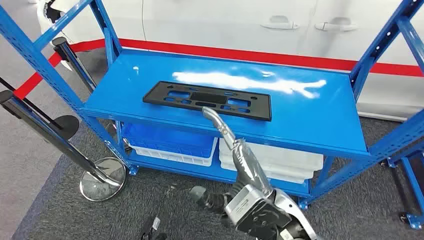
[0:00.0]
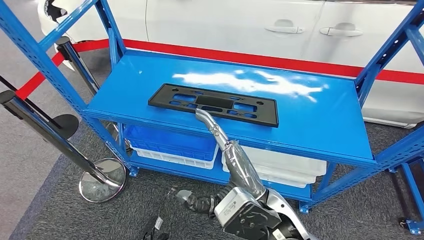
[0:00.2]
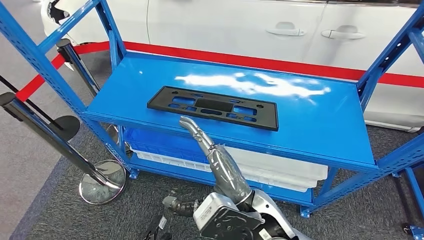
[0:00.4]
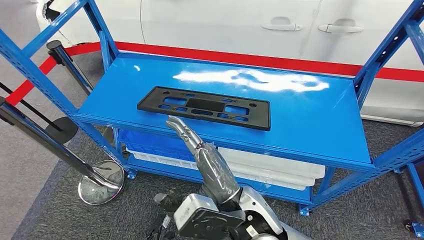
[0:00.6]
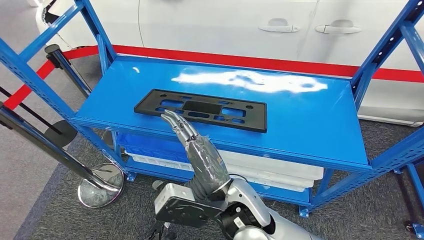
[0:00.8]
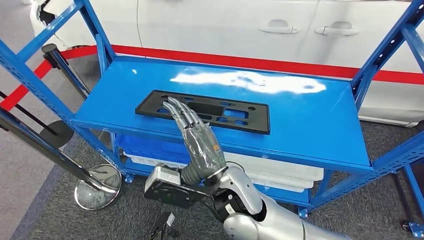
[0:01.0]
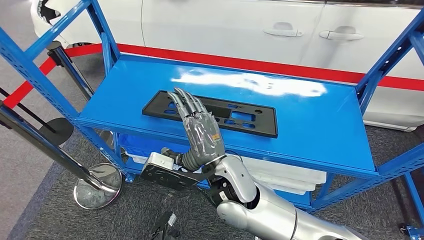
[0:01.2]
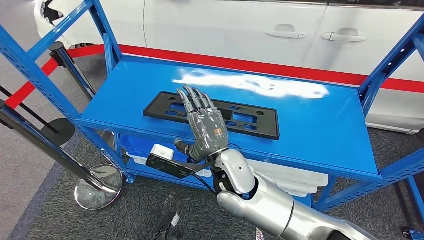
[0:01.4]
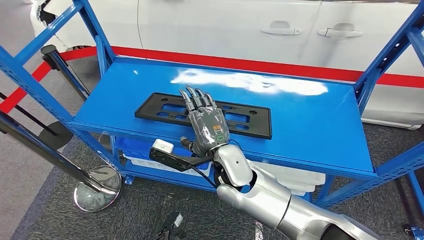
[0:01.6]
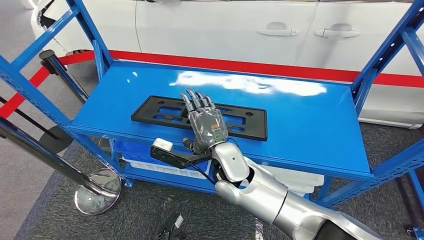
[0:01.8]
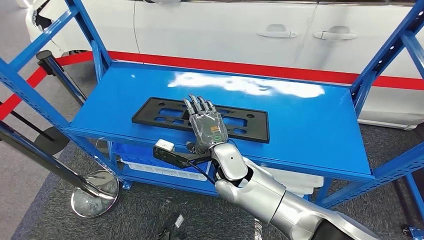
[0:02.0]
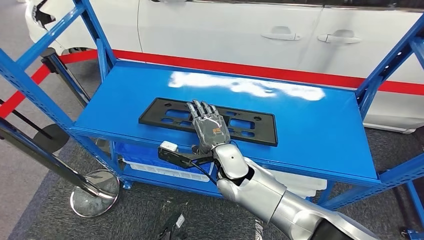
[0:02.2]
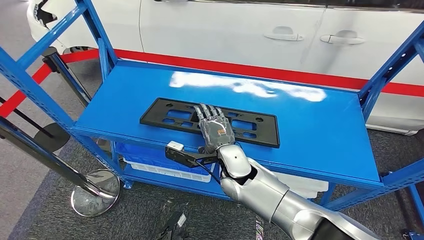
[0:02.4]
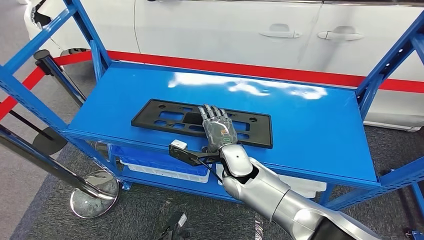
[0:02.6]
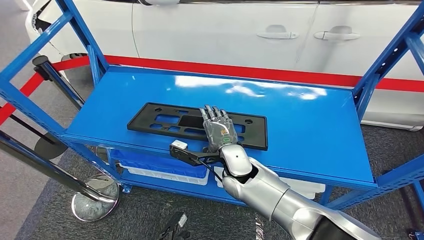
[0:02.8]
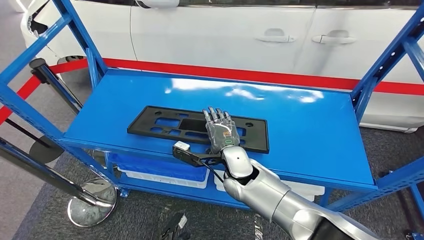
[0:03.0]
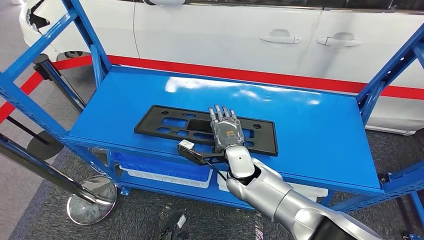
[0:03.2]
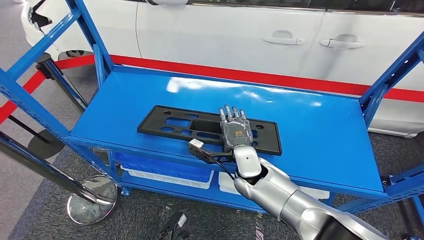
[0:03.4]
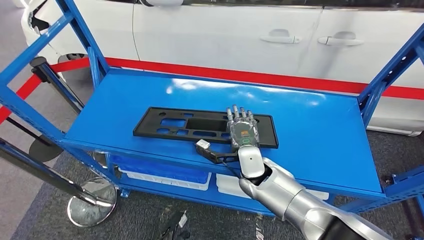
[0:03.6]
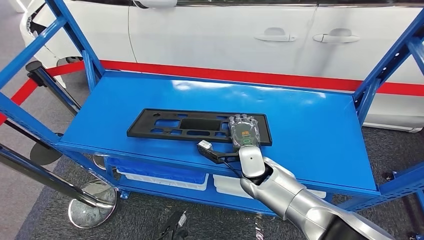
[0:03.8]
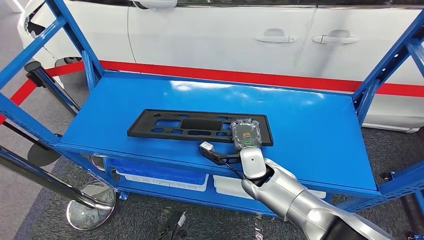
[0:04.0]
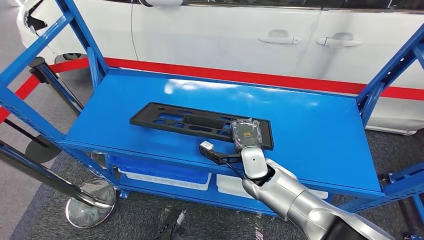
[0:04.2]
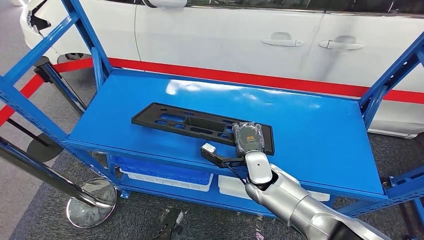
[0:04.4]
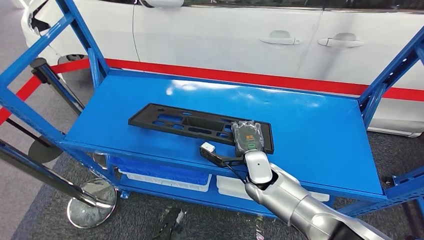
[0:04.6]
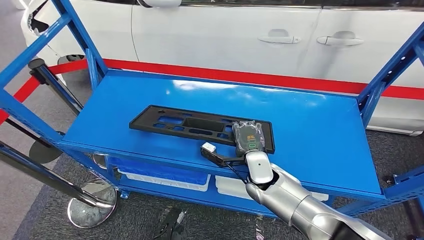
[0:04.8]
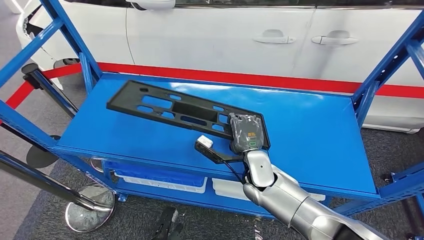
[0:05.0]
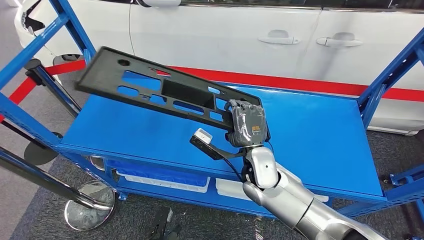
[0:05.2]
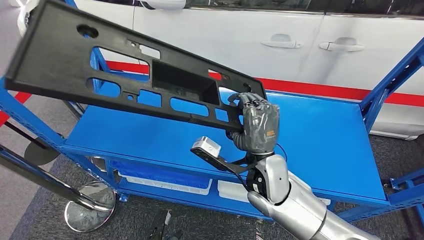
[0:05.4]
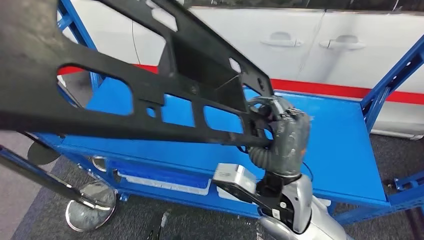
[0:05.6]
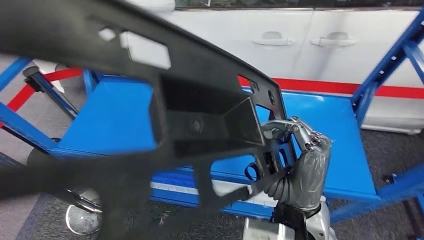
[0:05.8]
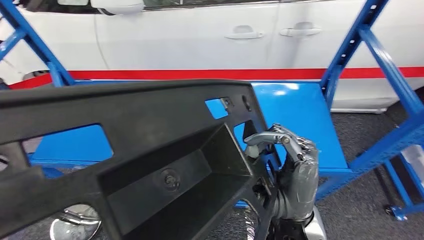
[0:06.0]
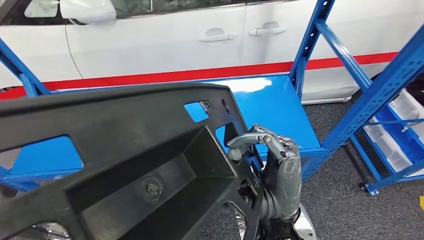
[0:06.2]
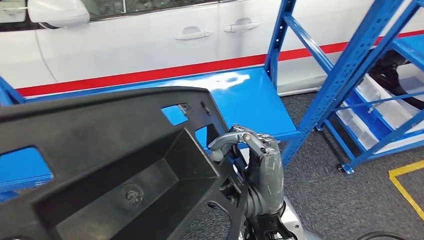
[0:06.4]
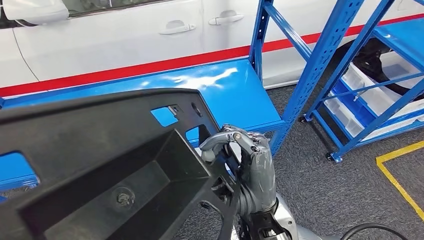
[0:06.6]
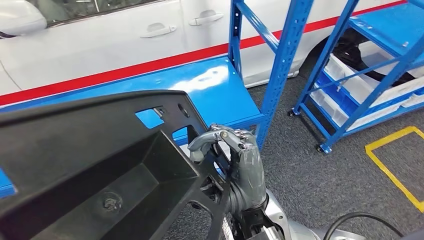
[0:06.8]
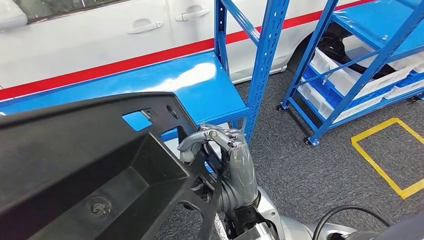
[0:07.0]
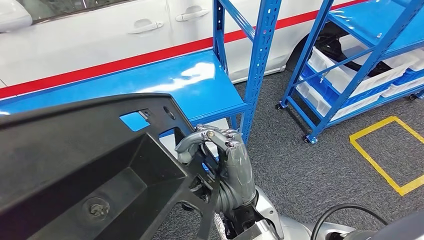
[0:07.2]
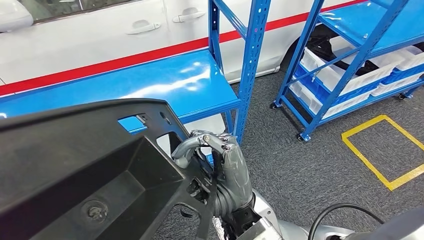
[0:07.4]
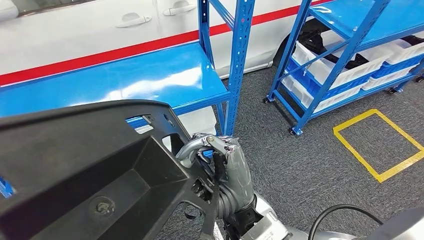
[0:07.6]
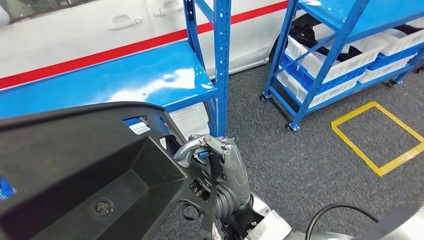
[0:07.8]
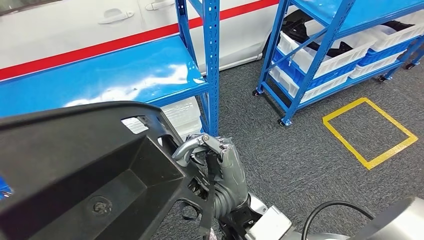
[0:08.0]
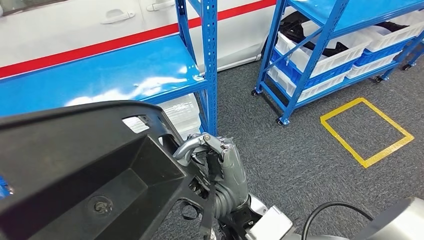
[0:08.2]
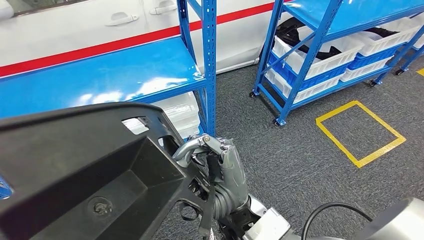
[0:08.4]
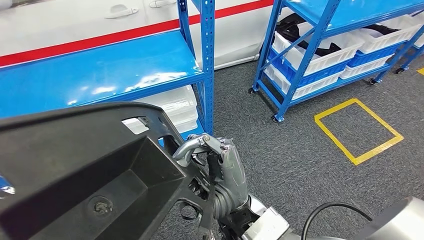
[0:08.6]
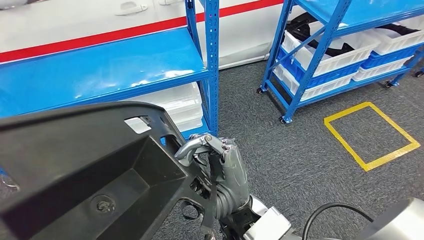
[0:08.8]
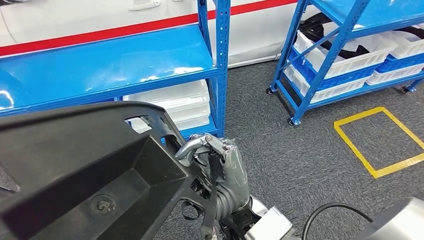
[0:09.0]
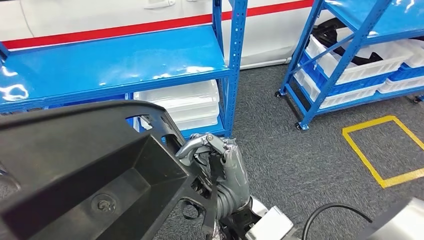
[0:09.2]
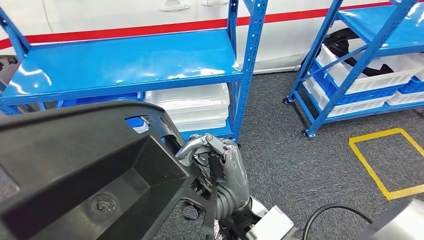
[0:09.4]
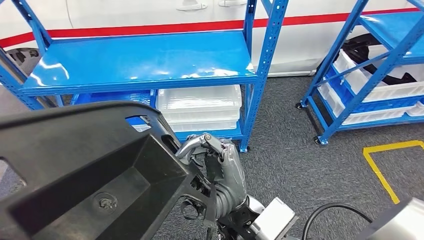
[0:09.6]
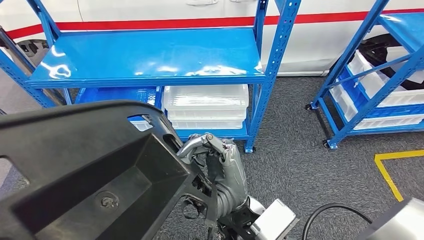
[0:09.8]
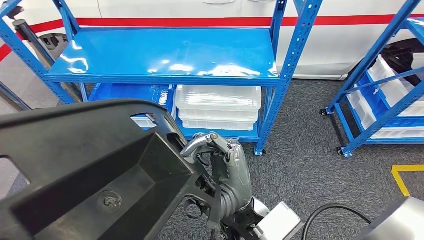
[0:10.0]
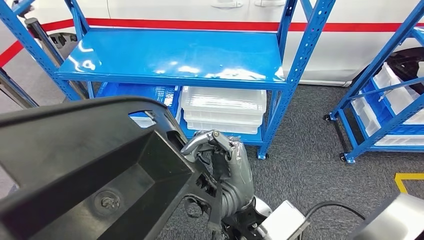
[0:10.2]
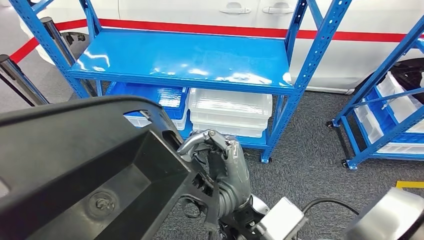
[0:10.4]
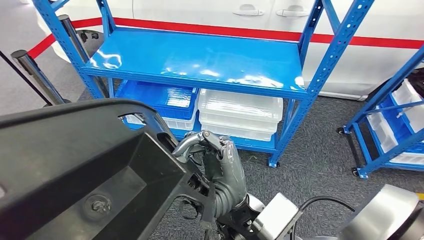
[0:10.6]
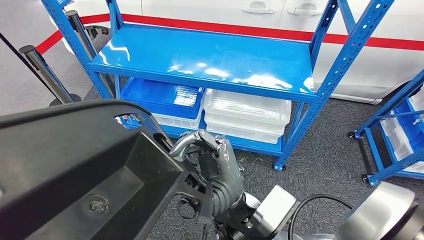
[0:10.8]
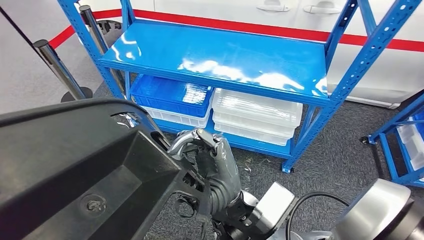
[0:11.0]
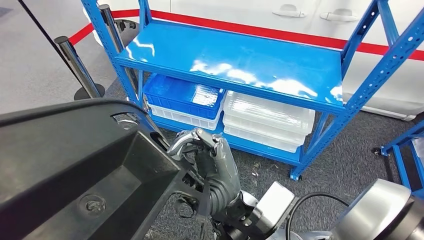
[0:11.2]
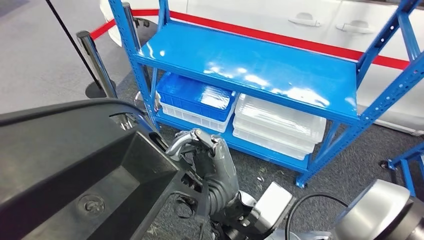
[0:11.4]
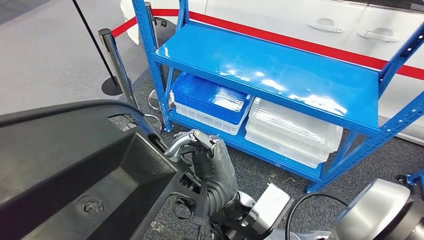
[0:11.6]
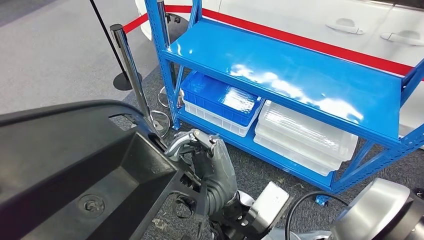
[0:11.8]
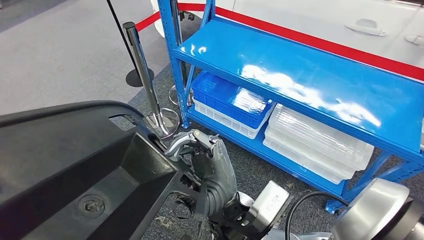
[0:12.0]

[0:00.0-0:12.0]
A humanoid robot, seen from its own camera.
Step, 0:00.0 to 0:05.8: Pick up the large material from the shelf.

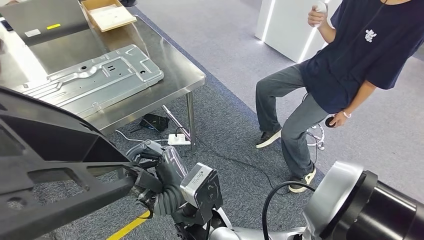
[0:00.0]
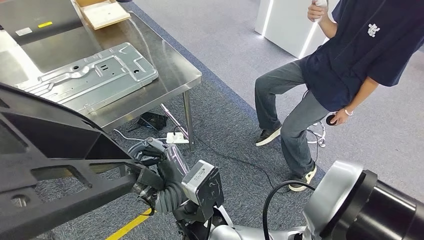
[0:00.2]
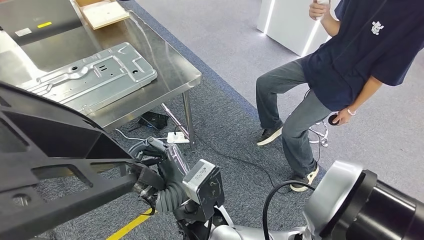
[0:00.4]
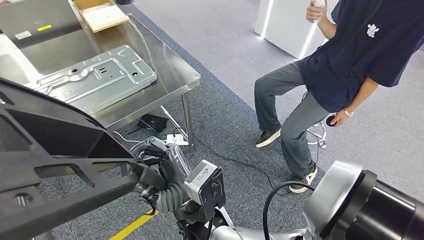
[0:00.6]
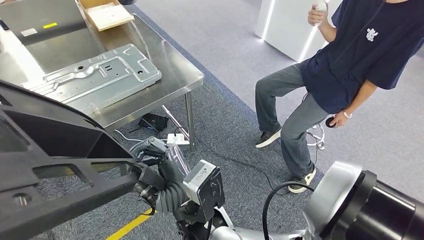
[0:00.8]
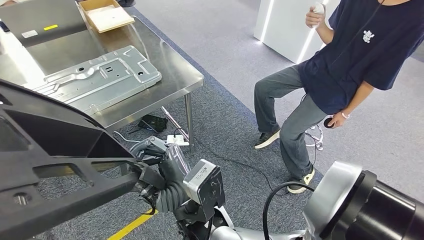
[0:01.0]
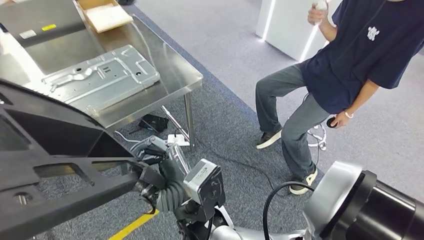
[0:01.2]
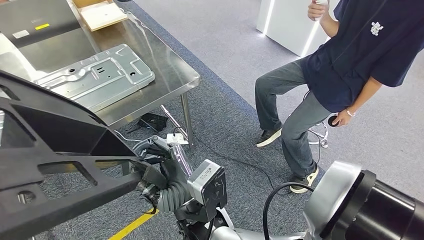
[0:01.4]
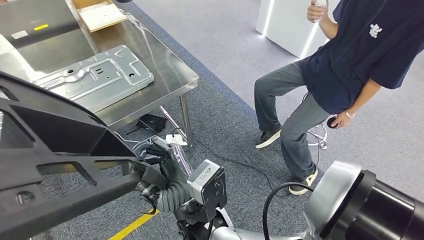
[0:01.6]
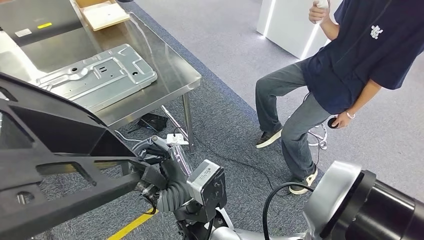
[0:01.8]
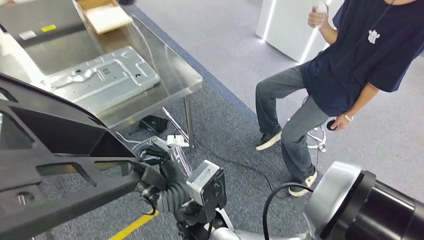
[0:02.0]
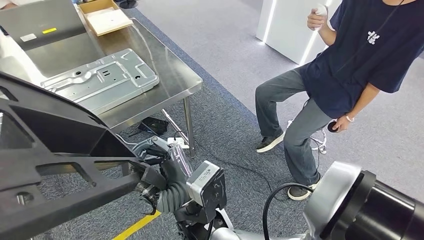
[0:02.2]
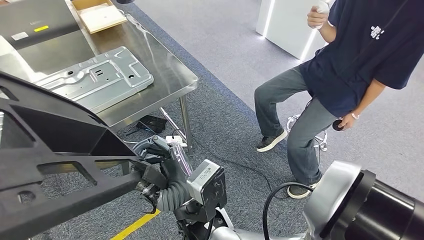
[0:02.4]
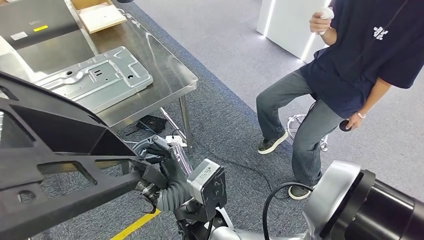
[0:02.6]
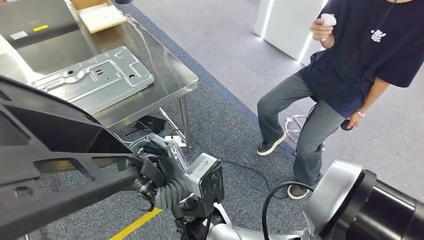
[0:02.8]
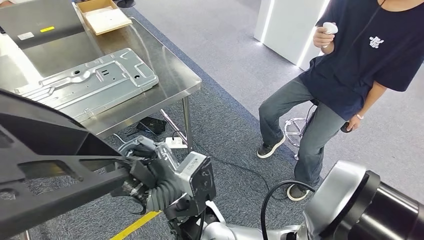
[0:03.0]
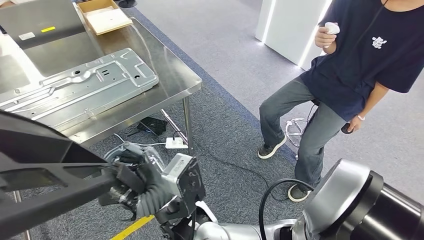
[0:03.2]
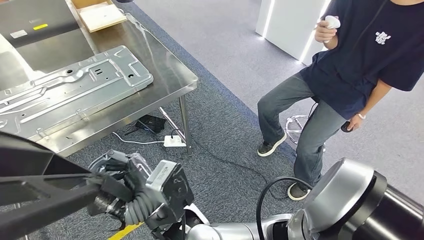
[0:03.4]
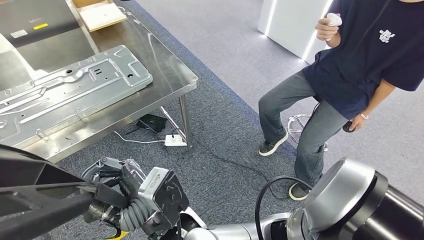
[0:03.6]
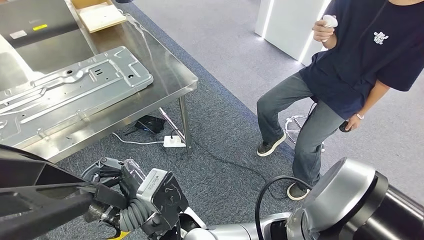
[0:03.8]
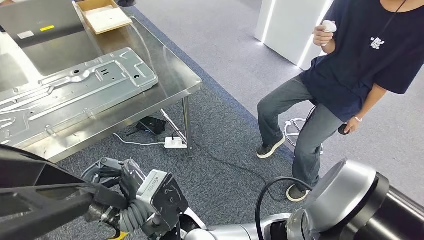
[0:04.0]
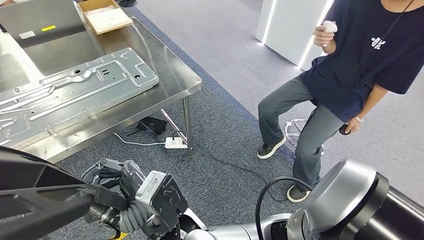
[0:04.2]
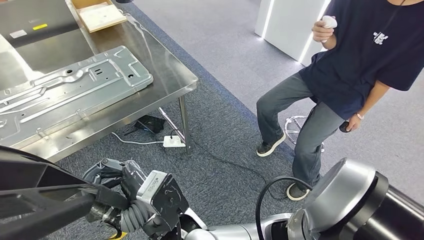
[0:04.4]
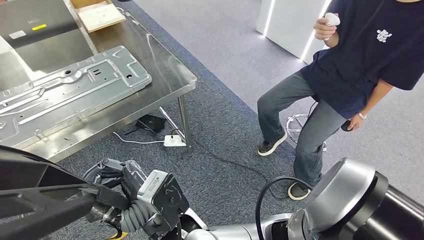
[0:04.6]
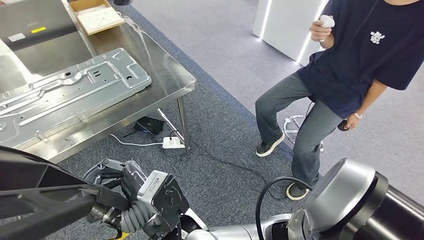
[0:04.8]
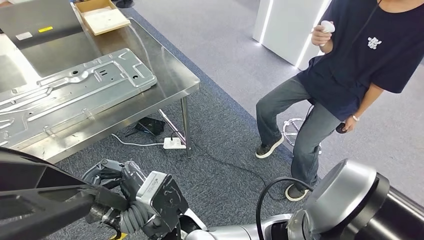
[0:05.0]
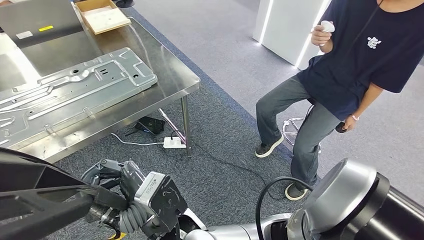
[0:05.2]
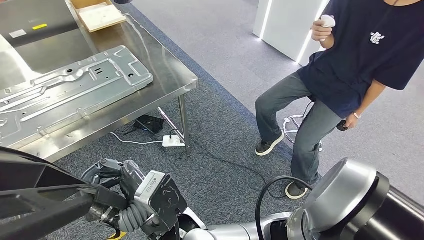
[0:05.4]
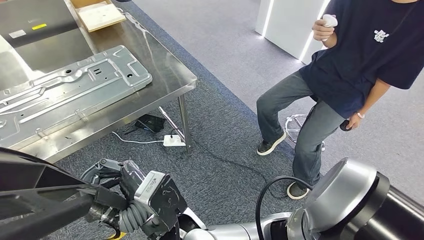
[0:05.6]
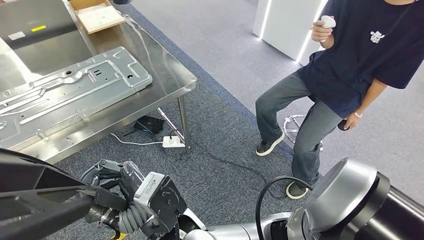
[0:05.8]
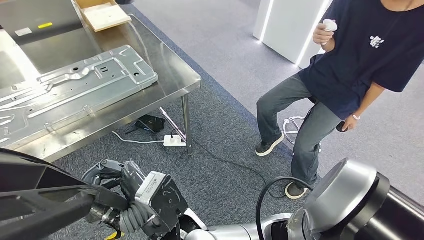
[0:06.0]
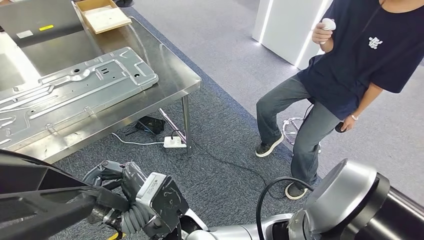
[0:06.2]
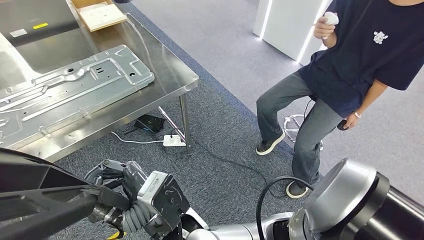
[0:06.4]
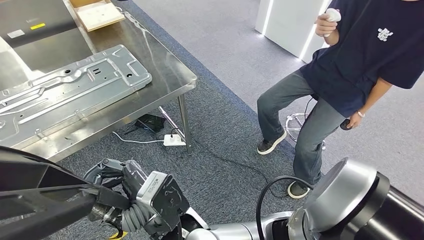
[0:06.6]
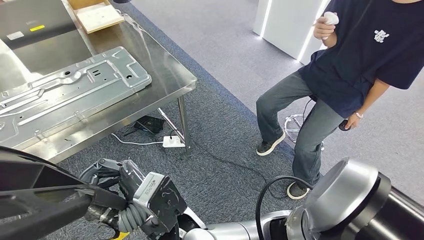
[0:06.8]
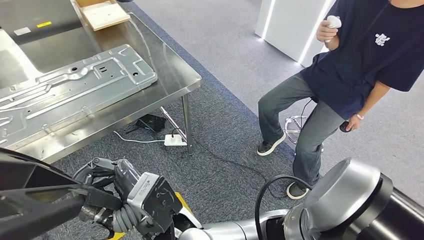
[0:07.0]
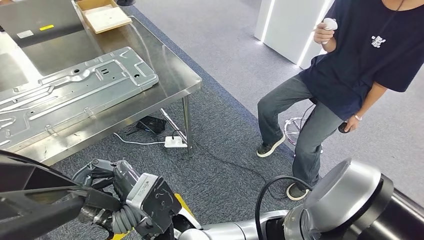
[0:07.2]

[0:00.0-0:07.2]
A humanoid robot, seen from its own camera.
0:04.4 to 0:07.2: Both hands stay put.
